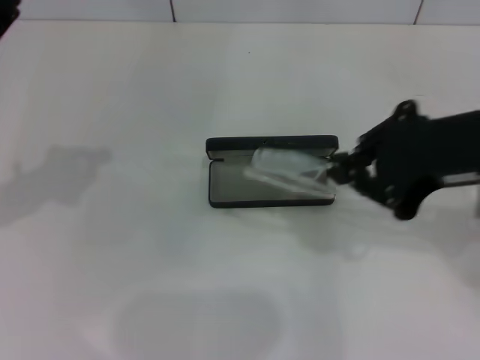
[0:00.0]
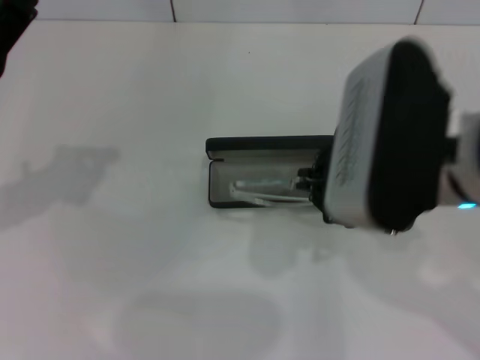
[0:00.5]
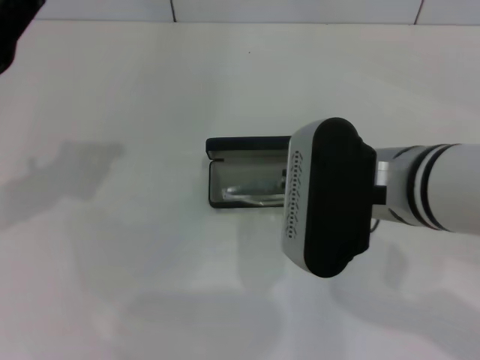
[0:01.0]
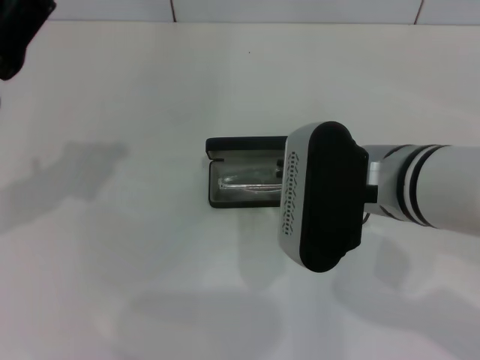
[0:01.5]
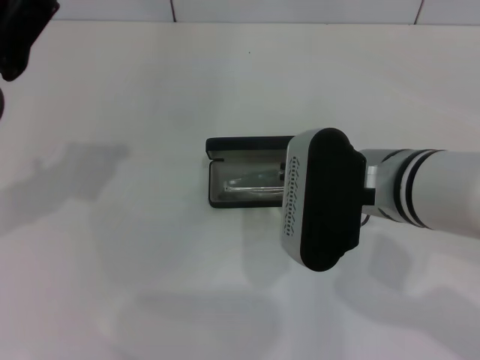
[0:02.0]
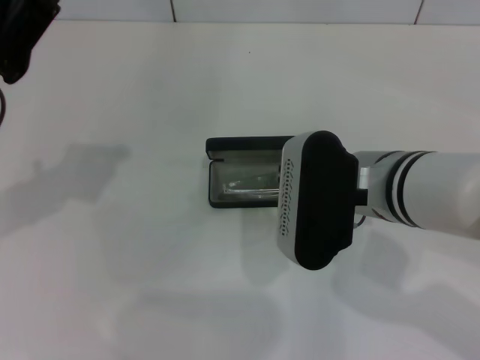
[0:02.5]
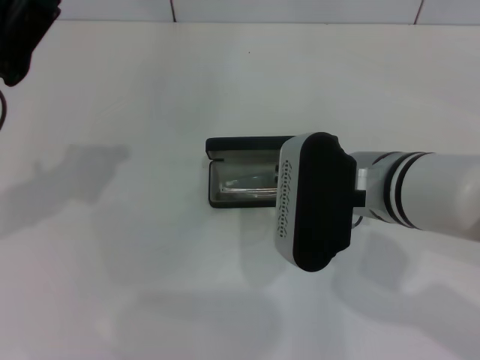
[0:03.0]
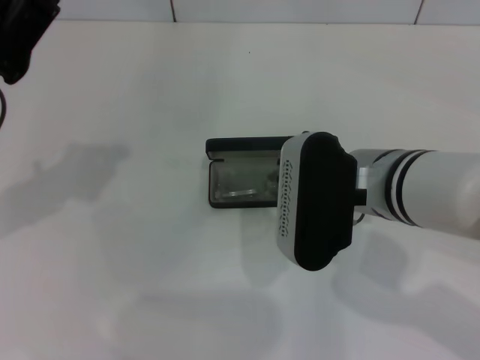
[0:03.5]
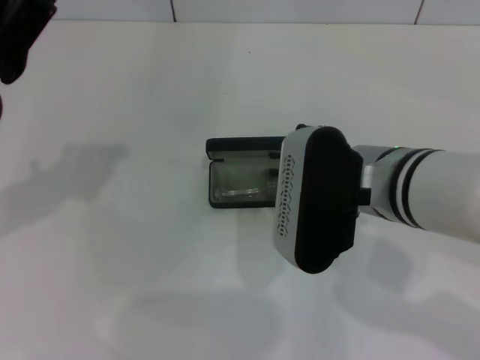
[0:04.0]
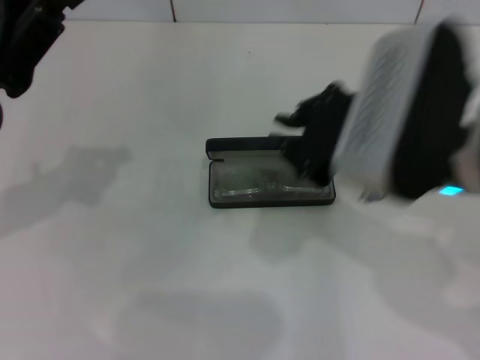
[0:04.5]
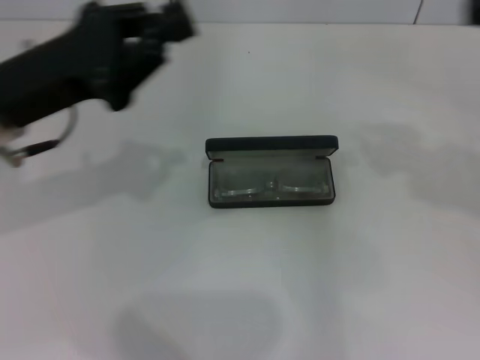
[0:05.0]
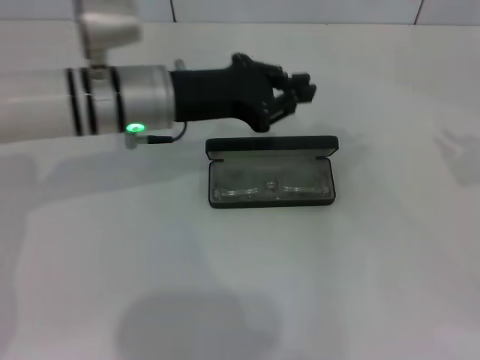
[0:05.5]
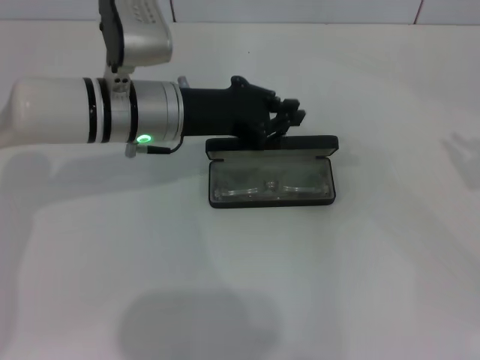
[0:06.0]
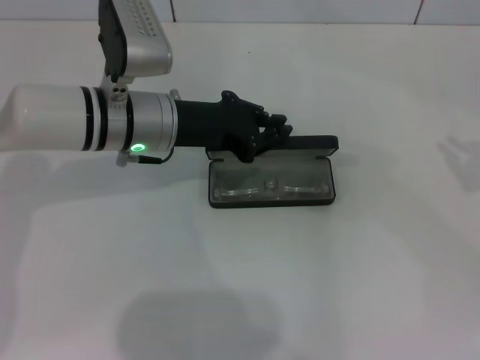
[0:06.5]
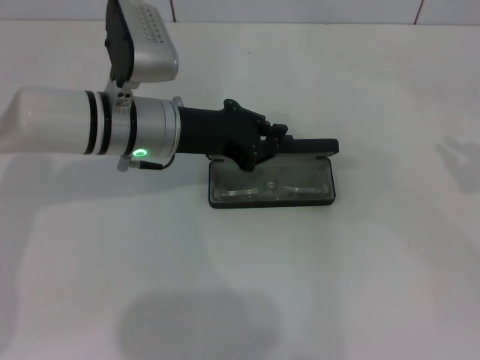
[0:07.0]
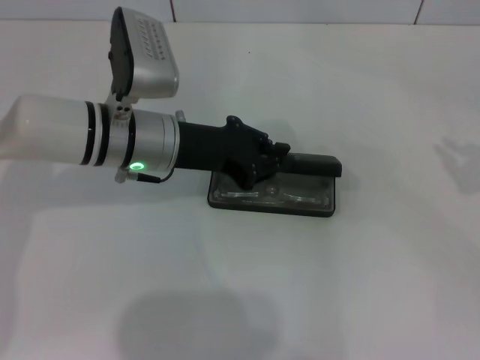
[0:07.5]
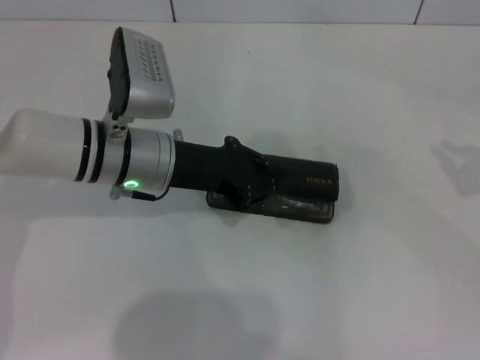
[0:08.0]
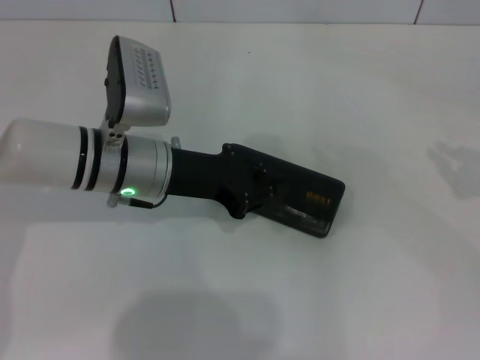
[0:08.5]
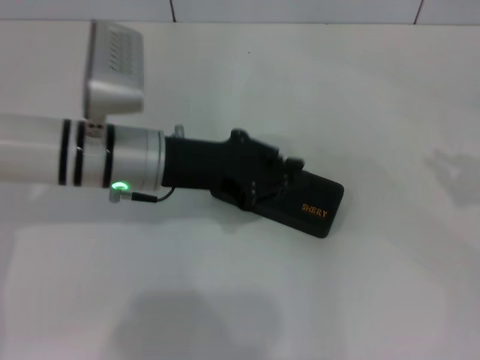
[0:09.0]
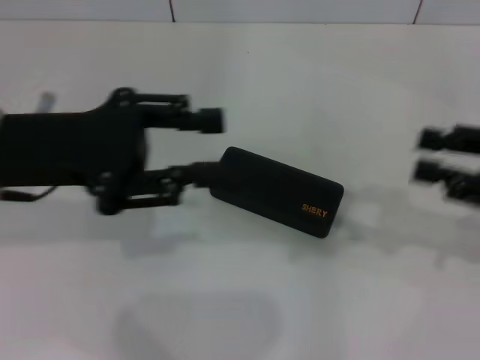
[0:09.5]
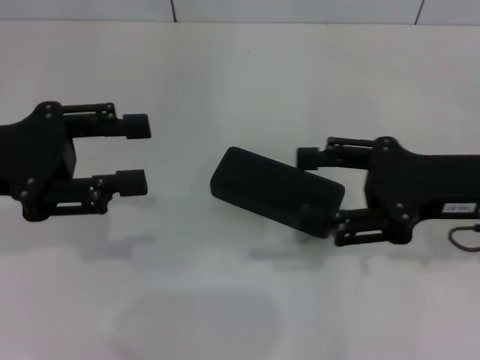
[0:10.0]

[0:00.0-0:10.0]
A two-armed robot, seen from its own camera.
Step, 0:00.0 to 0:03.0: Put the glasses into the case with your right hand.
Step, 0:04.0 to 0:08.5: Close the glasses case with your left hand.
0:00.0 to 0:02.0: The right gripper goes roughly 15 cm downward and to the left.
0:02.0 to 0:04.0: Neither gripper changes place.
0:04.0 to 0:06.0: The right gripper heads to the right, covering roughly 30 cm. The left gripper shifts some 20 cm to the right, forward and downward.
0:06.0 to 0:08.0: The grippers stay close to where they were, moving slightly.
0:08.0 to 0:10.0: The left gripper shifts approximately 20 cm to the left, upward and backward, and opens its fingers. The right gripper goes some 15 cm to the left, and opens its fingers.

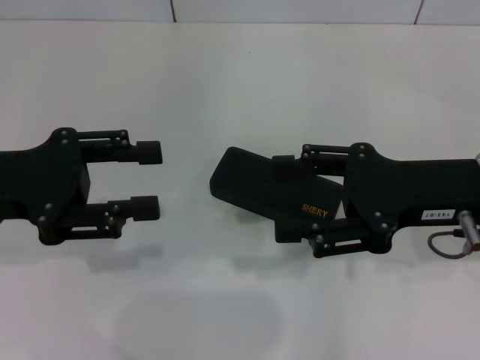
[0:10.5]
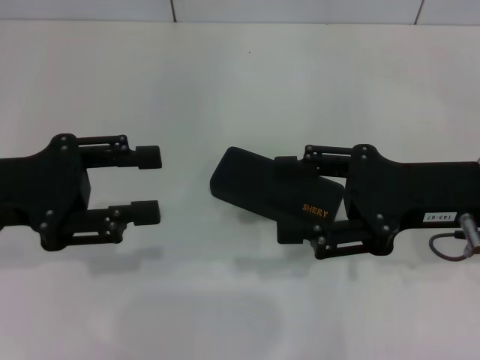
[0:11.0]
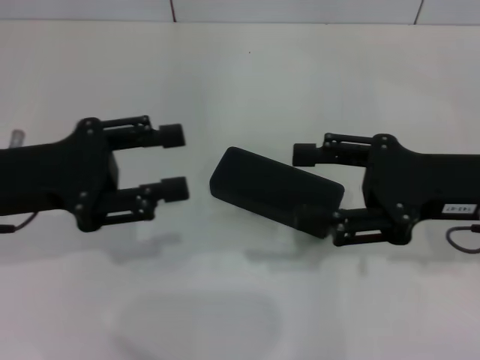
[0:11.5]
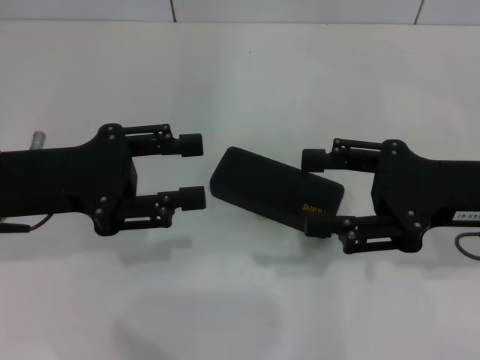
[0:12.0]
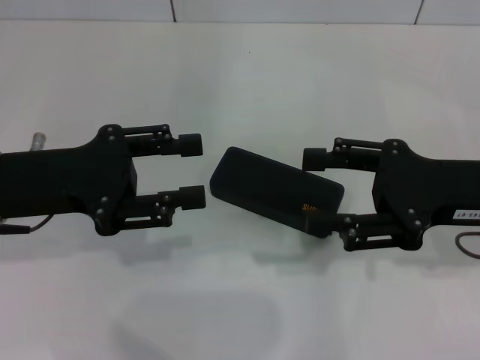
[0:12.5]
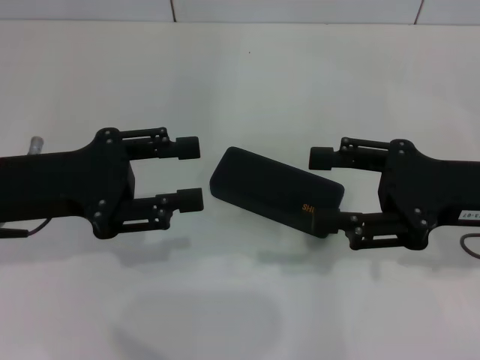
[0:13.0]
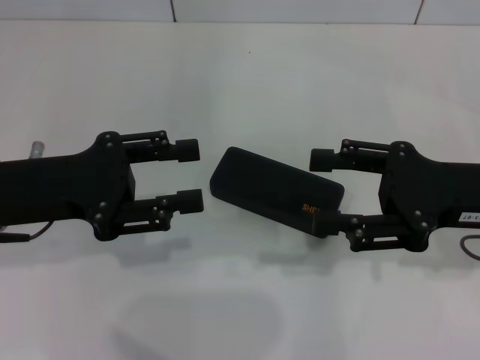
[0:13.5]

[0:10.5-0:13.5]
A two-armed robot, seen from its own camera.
0:10.5 to 0:12.0: The grippers stay close to where they were, moving slightly.
0:12.0 to 0:13.5: Neither gripper changes place.
